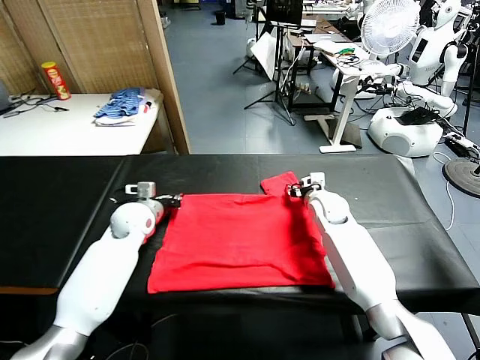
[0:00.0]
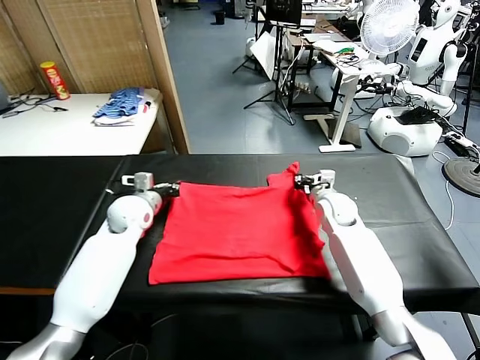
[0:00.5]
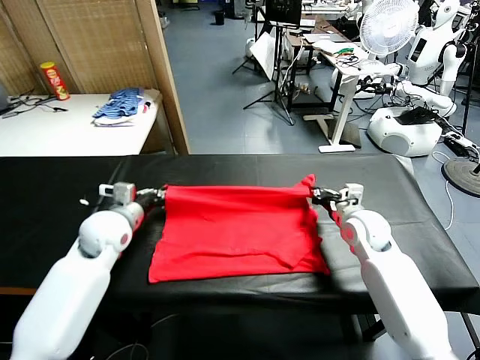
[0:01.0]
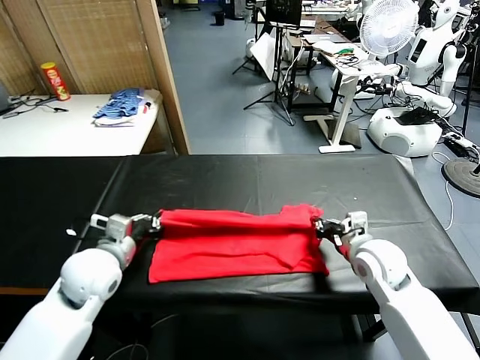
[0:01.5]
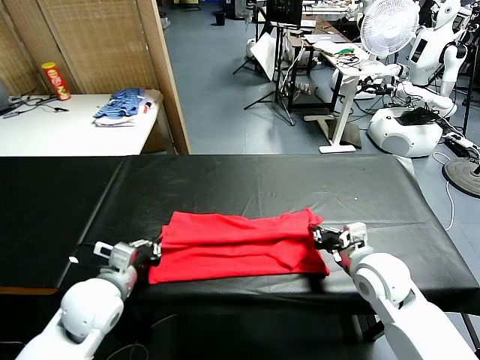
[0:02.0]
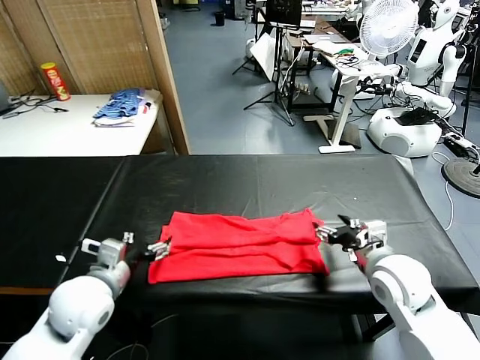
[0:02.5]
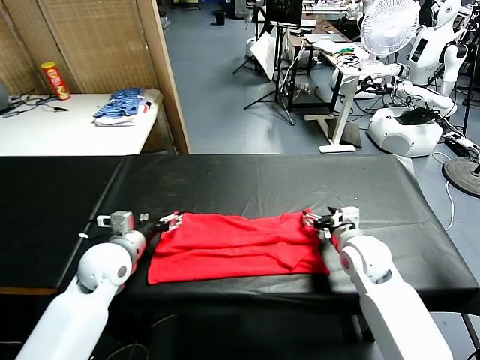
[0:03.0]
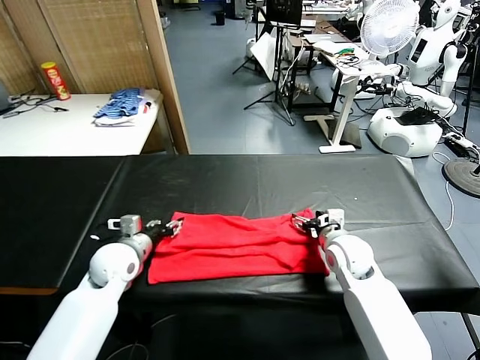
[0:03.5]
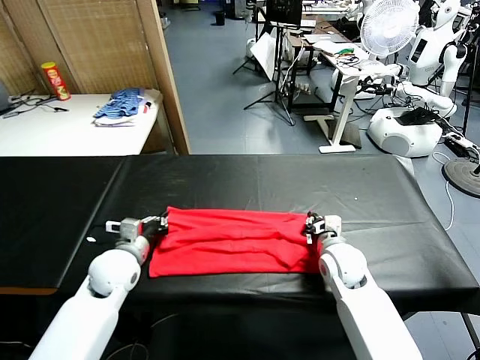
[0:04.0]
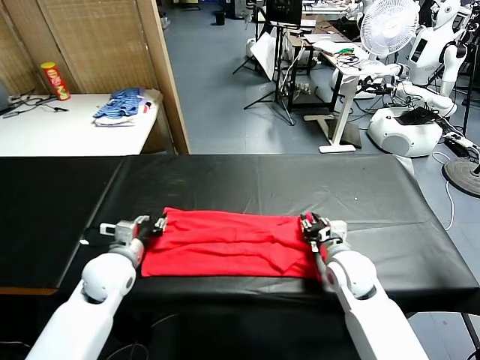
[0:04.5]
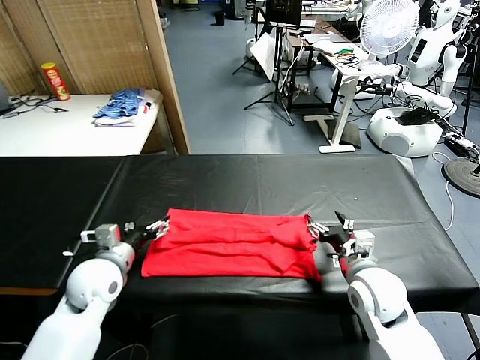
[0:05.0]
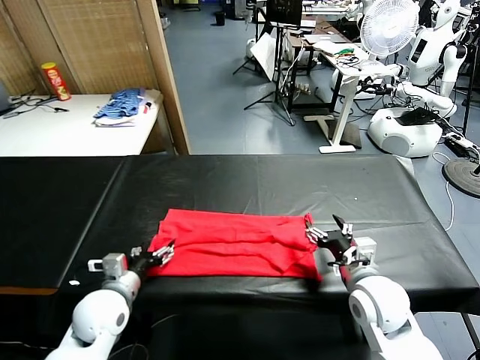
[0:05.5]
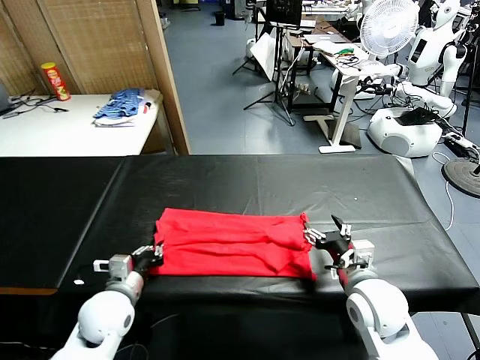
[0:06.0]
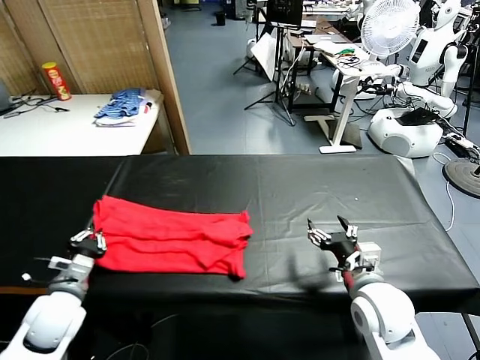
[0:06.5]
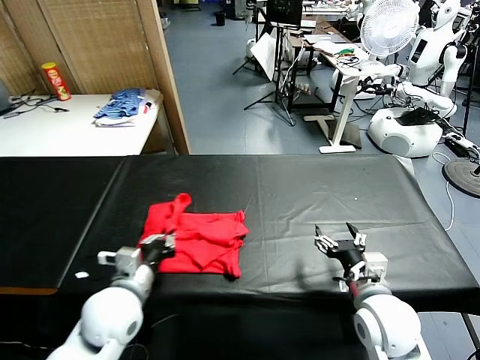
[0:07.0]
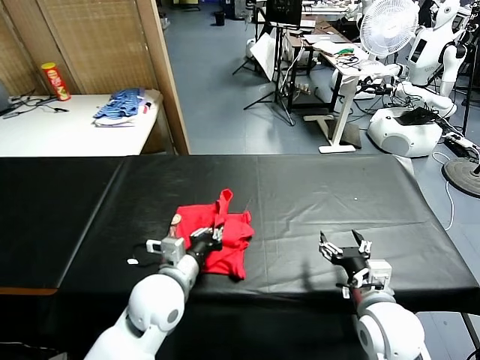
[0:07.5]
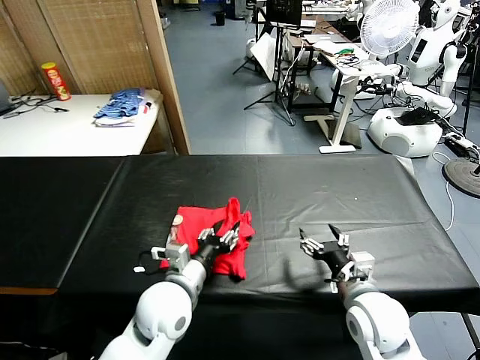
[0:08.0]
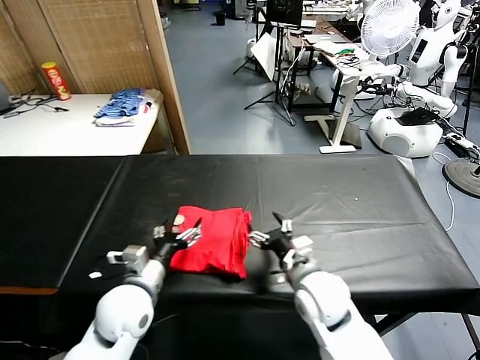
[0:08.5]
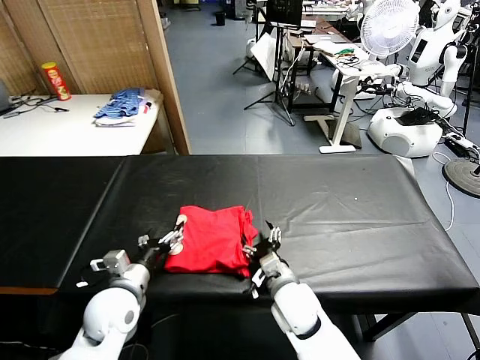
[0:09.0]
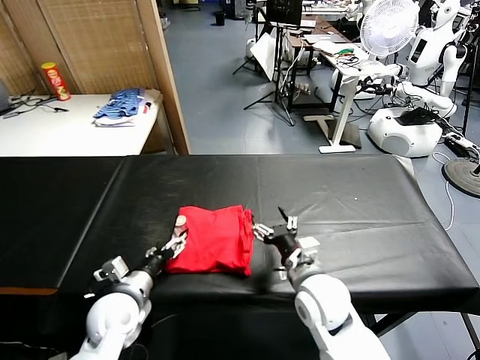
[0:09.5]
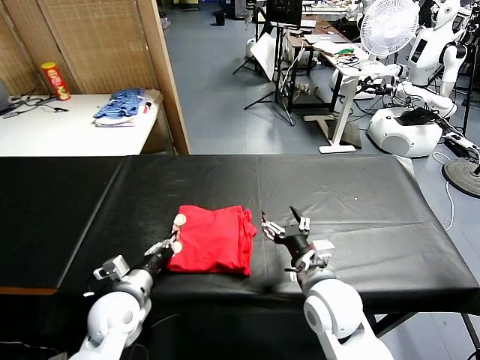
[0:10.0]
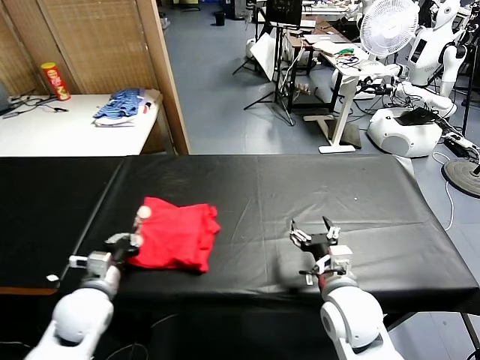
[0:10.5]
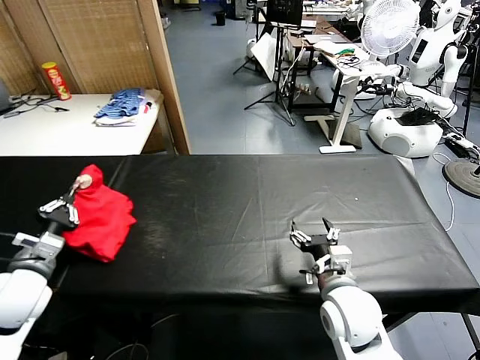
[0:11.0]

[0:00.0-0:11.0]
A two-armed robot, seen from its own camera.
Task of the whole recording: fold and organize the clothes.
Step, 0:00.5 to 0:02.0: use both grippers to drag the upper edge of the fabric backward and fold it over the lower edge.
Step, 0:02.5 to 0:06.0: use the left gripper to clamp the left edge of the fabric.
Step, 0:06.5 to 0:08.0: use the left gripper to drag the left edge of the fabric to the left and folds it over the right edge.
0:00.0 to 0:02.0: Both grippers move backward, approximately 20 cm.
0:02.0 to 0:03.5: The right gripper moves forward and downward, roughly 10 cm, and opens up. The left gripper shifts approximately 10 cm forward, and opens its fingers.
0:03.5 to 0:05.5: The two grippers go approximately 10 cm backward. The left gripper opens, while the right gripper closes and opens again.
0:05.5 to 0:07.5: The left gripper moves to the right and upward, approximately 15 cm, and closes its fingers.
0:07.5 to 0:09.0: The left gripper goes roughly 10 cm to the left, and opens up. The right gripper heads to the left, downward and forward, covering about 15 cm.
0:09.0 to 0:11.0: The left gripper heads to the left and upward, covering some 15 cm, and closes up; the right gripper goes approximately 10 cm to the right and upward.

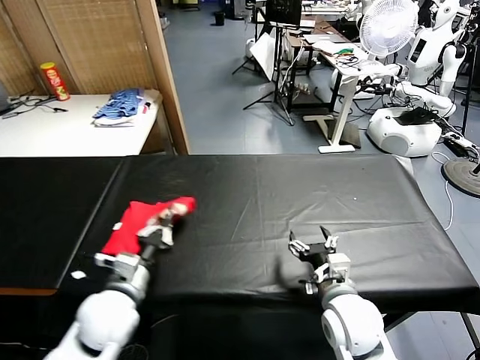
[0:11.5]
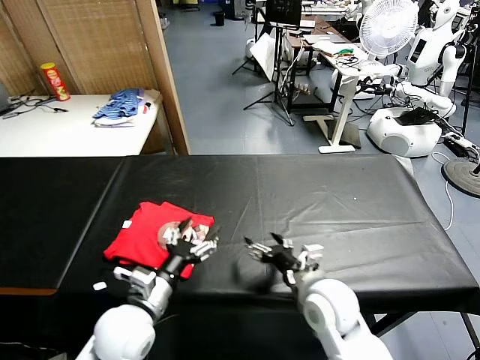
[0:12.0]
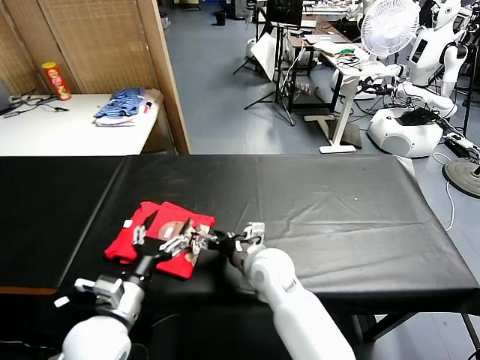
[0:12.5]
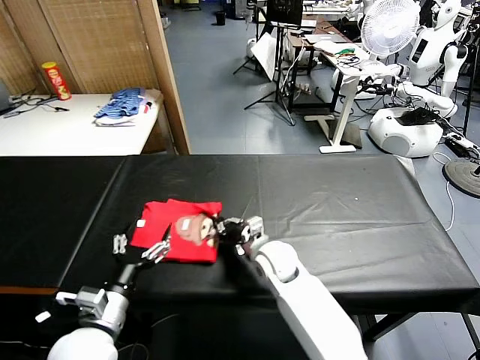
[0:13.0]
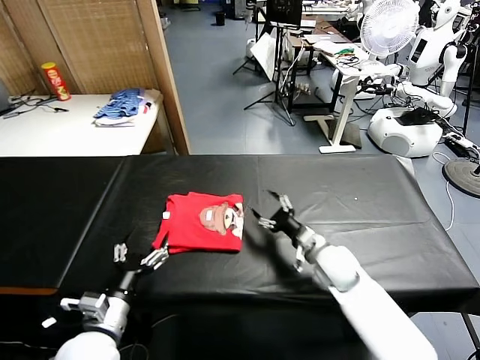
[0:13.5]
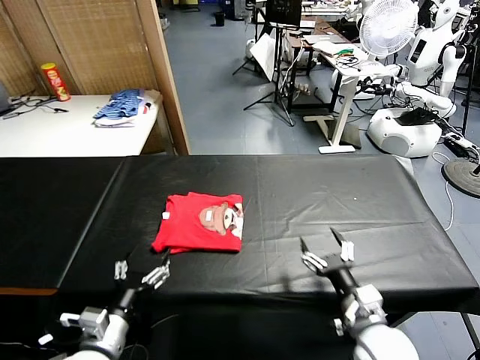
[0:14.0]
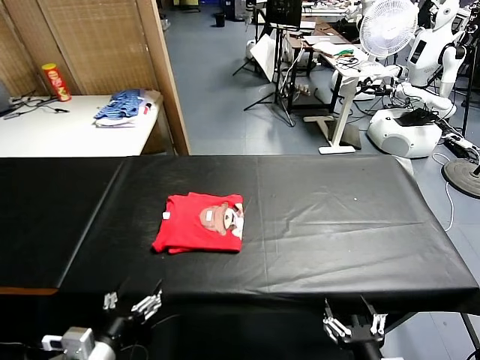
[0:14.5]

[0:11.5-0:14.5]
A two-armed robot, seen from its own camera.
Task of the whole recording: fold and organize the clothes.
Step, 0:12.0 to 0:13.0: Drag the clothes to the center of the table.
0:11.5 to 0:13.0: The right gripper shifts approximately 20 cm forward, to the left and downward, and closes up, while the left gripper goes some 5 cm backward, and opens up.
0:13.0 to 0:14.5: The left gripper travels backward by roughly 5 cm. Meanwhile the right gripper heads backward and to the right, covering roughly 35 cm, and opens its fingers.

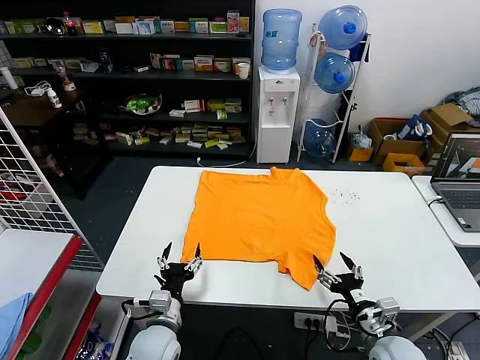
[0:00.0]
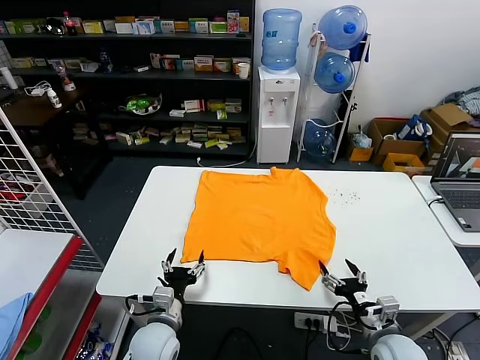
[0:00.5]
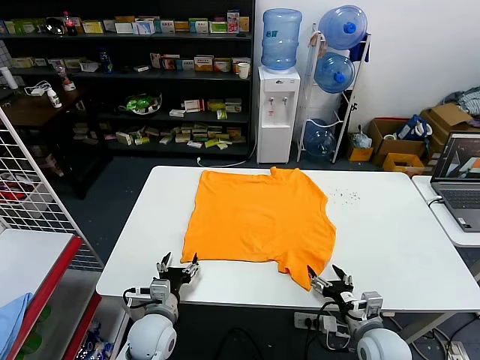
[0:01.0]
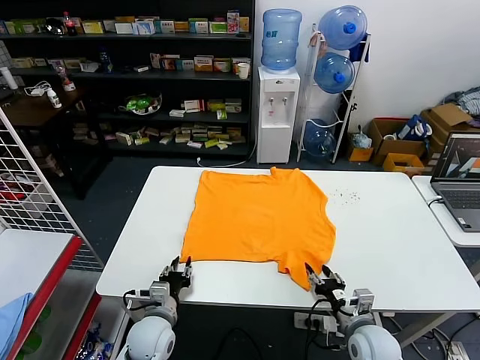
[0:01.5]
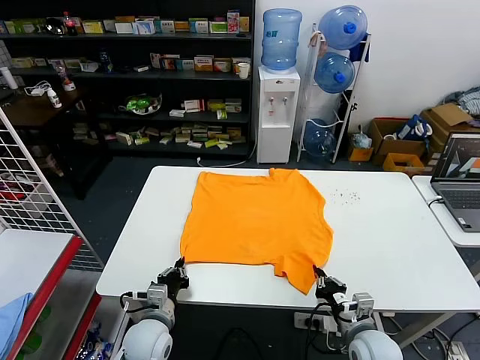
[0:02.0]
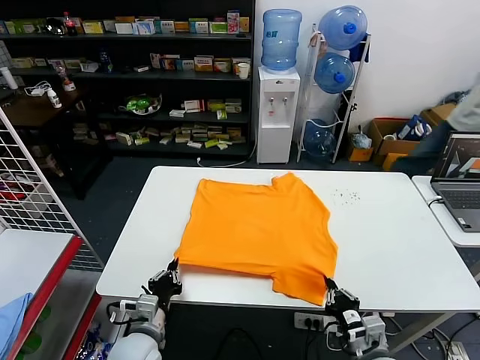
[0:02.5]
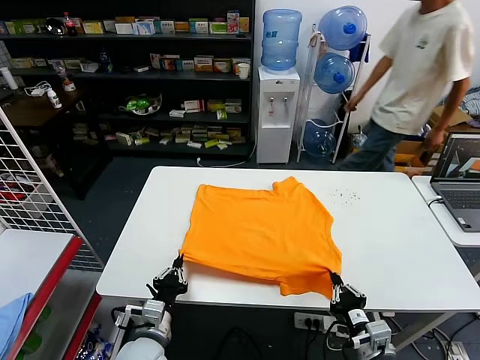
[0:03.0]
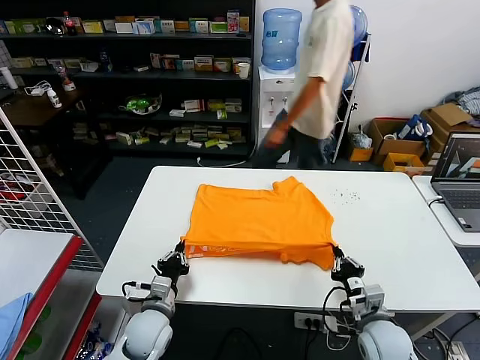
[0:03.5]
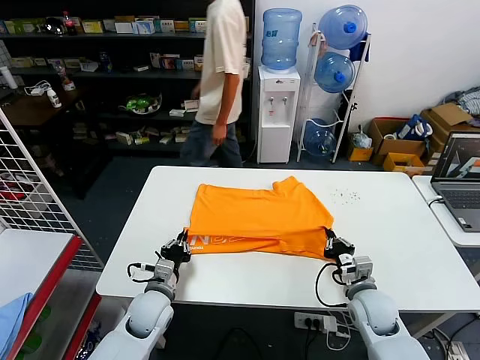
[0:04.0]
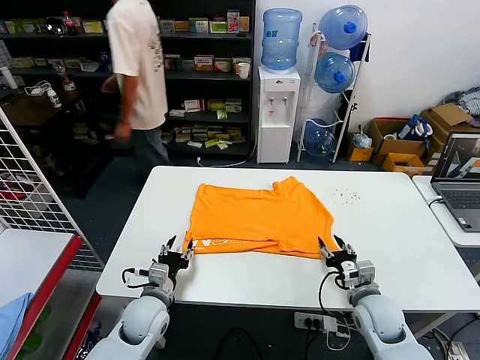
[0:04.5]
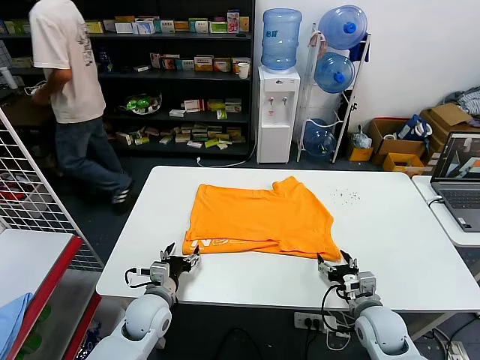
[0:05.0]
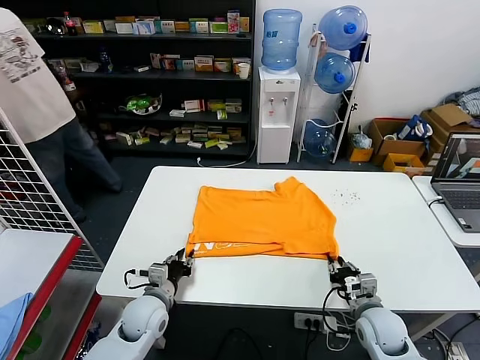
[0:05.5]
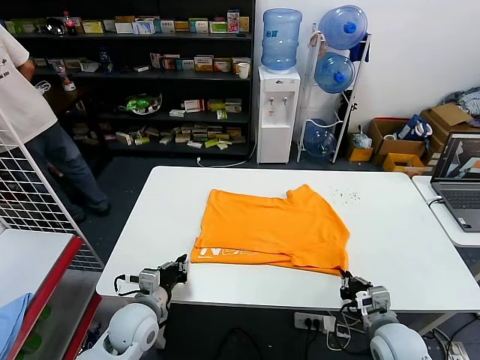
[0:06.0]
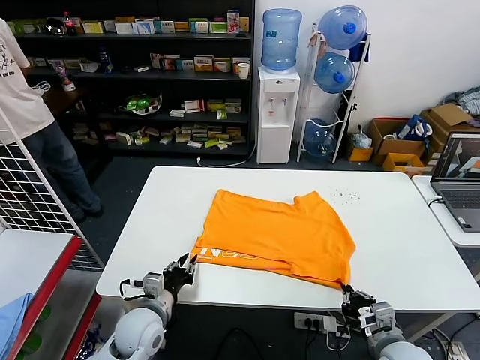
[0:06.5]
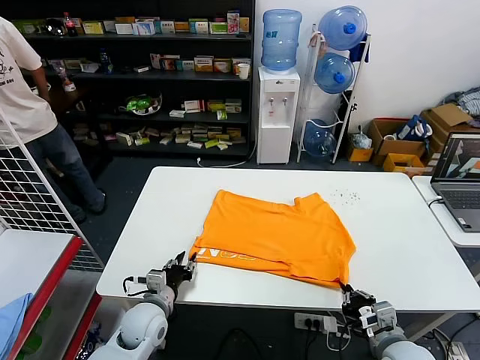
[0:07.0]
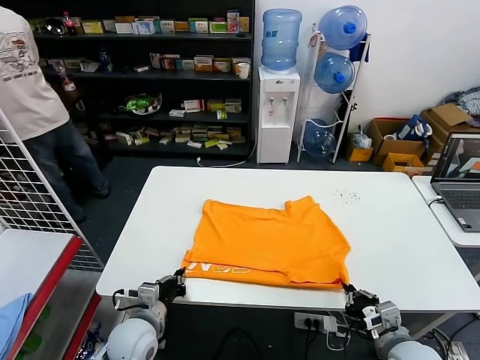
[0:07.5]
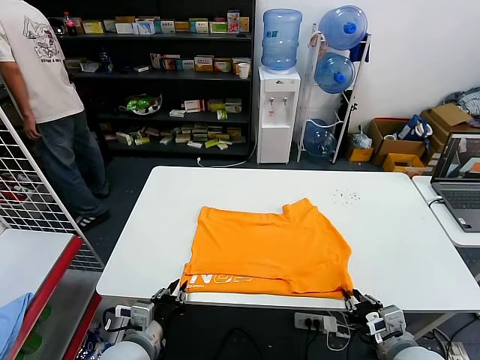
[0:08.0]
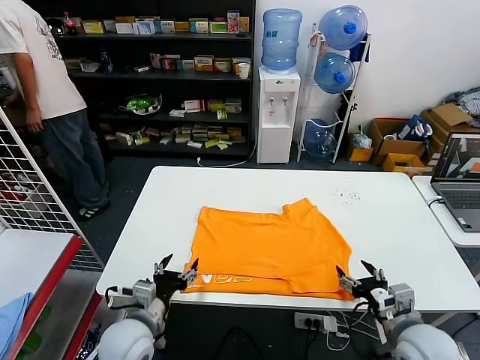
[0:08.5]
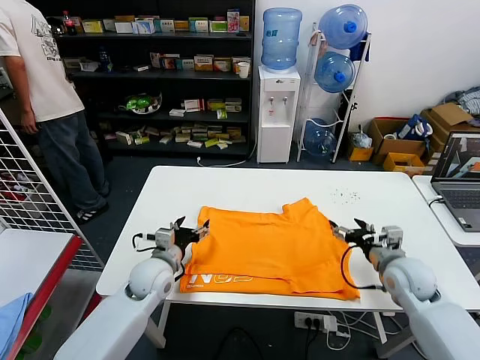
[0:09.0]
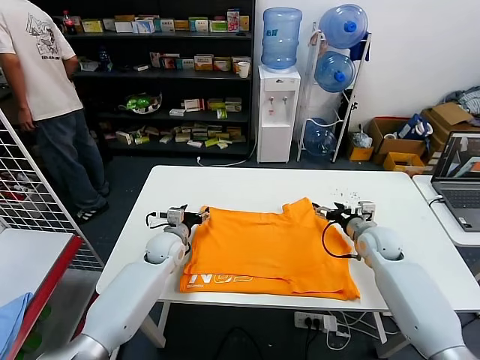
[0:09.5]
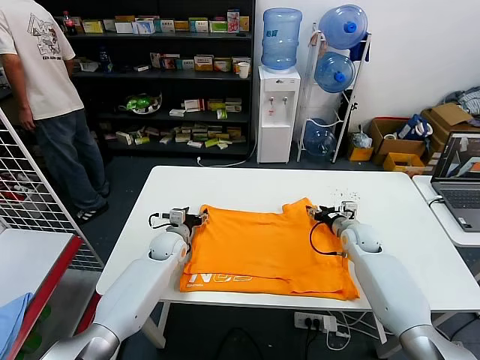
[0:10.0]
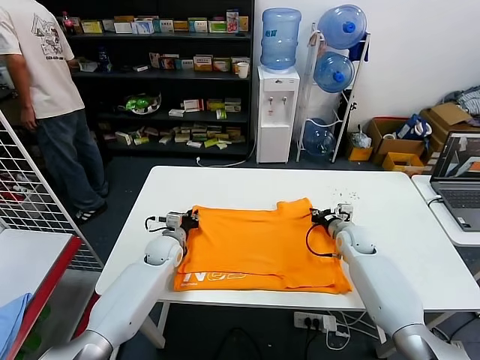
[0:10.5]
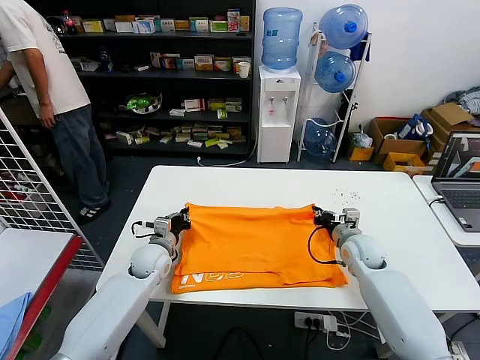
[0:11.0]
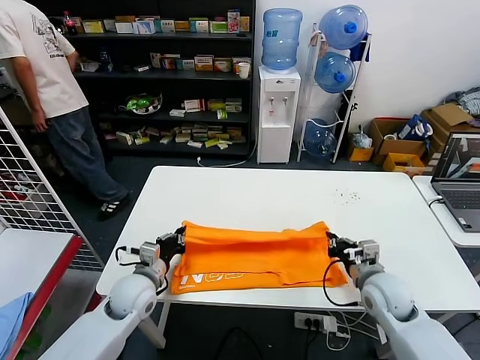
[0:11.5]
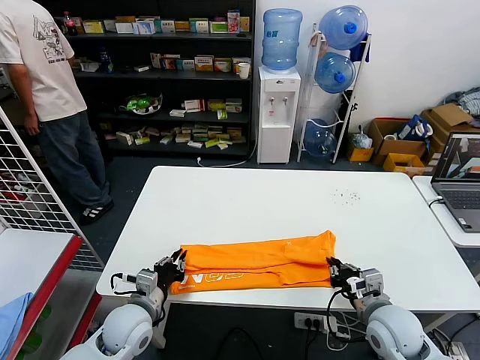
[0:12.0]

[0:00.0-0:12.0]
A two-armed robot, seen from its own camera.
Task of the whole recording: fold and organize the clothes.
Step, 0:00.0 to 0:01.5: use both grippers simultaneously to clamp the lower edge of the clothing fabric.
Step, 0:02.0 to 0:04.0: use both grippers to drag the lower edge of the fabric forward and fold it over the upper edge.
Step, 0:04.5 to 0:08.0: Drag the clothes downward with both gripper.
Step, 0:08.5 to 0:10.5: use both grippers simultaneously to clamp the upper edge of the clothing fabric.
0:02.0 to 0:04.0: The two grippers go roughly 10 cm forward.
0:04.0 to 0:06.0: The right gripper moves backward, approximately 10 cm, and opens, then closes again. The left gripper shifts by roughly 5 cm, and opens and closes again.
0:06.0 to 0:08.0: The left gripper goes about 10 cm backward, while the right gripper shifts by roughly 5 cm.
0:08.0 to 0:10.0: The grippers both shift forward by about 30 cm. The right gripper opens, then closes once more; the left gripper opens.
0:10.0 to 0:12.0: The two grippers go roughly 25 cm backward. The right gripper closes, while the left gripper closes.
